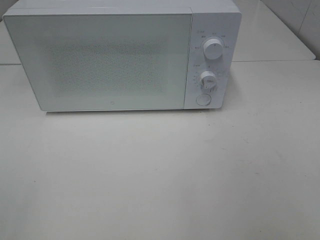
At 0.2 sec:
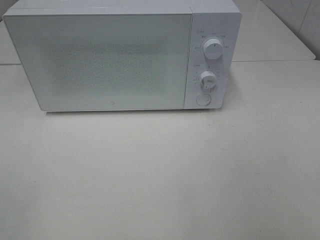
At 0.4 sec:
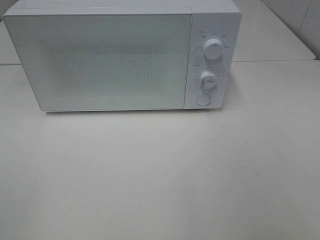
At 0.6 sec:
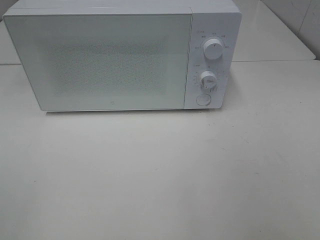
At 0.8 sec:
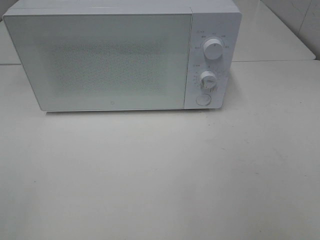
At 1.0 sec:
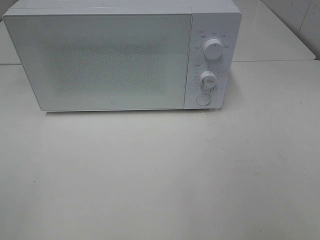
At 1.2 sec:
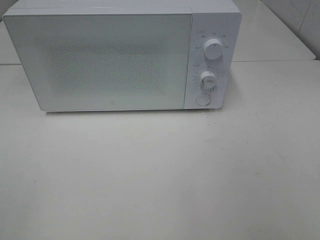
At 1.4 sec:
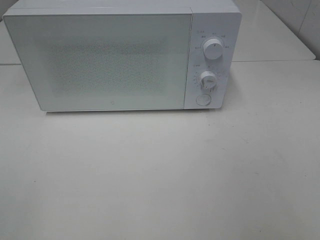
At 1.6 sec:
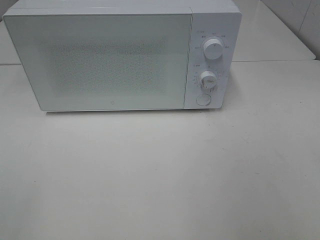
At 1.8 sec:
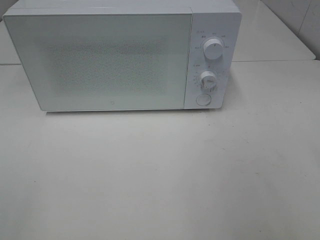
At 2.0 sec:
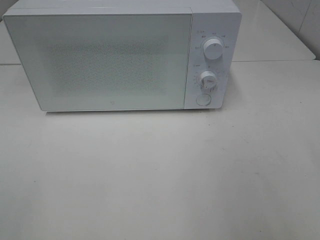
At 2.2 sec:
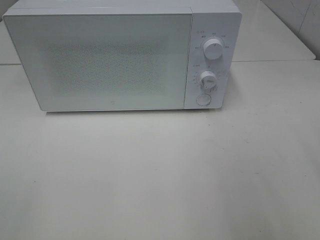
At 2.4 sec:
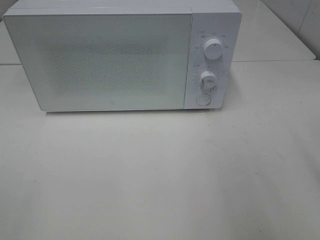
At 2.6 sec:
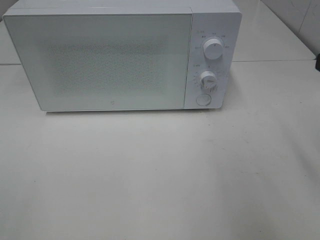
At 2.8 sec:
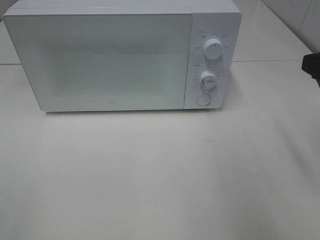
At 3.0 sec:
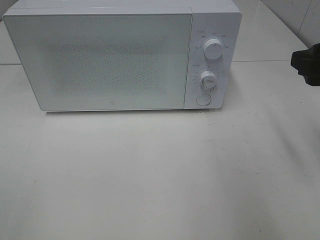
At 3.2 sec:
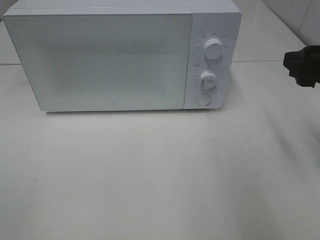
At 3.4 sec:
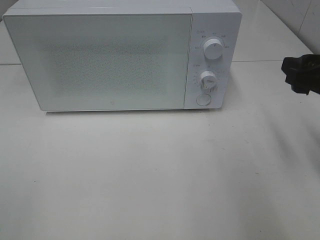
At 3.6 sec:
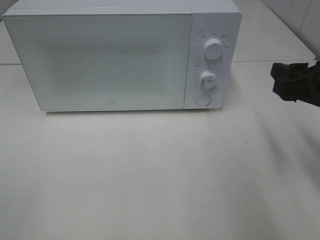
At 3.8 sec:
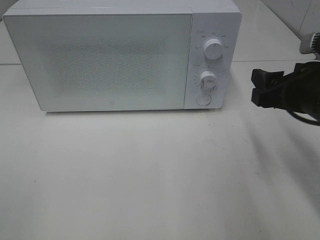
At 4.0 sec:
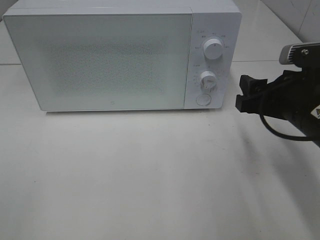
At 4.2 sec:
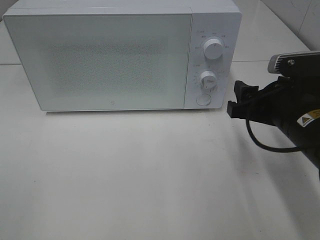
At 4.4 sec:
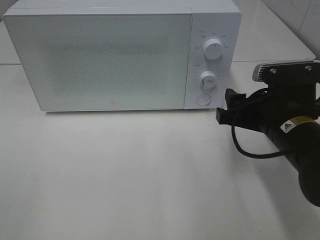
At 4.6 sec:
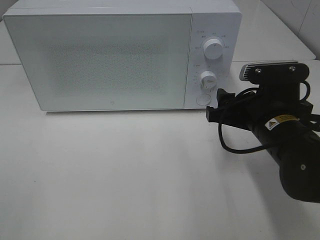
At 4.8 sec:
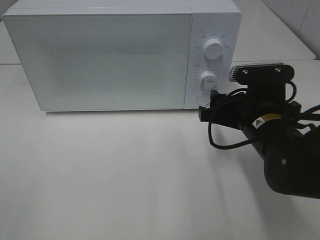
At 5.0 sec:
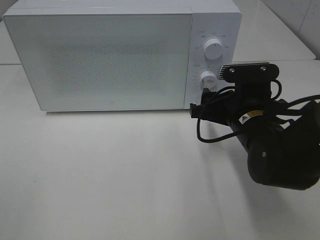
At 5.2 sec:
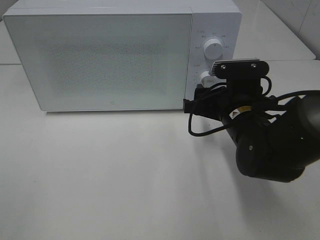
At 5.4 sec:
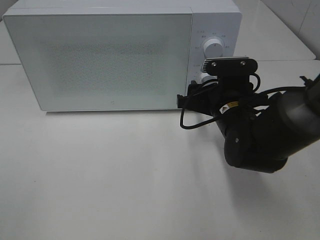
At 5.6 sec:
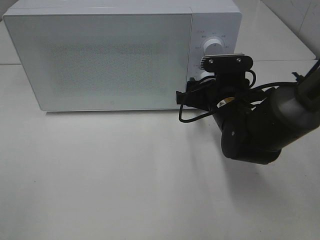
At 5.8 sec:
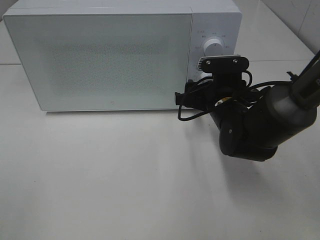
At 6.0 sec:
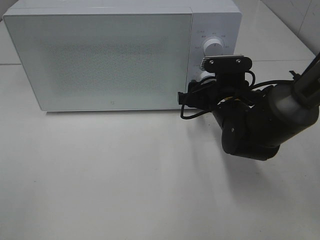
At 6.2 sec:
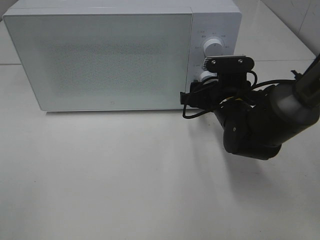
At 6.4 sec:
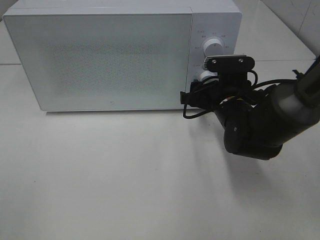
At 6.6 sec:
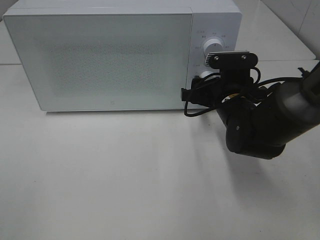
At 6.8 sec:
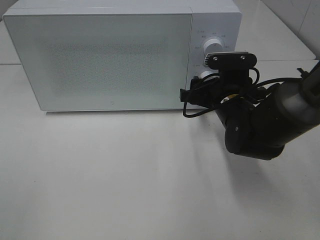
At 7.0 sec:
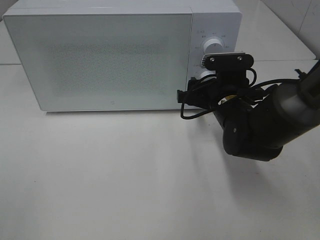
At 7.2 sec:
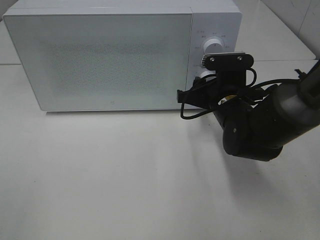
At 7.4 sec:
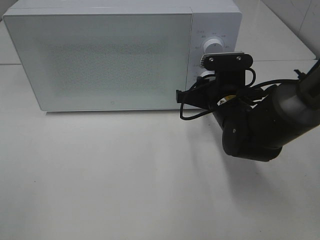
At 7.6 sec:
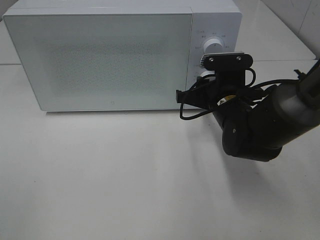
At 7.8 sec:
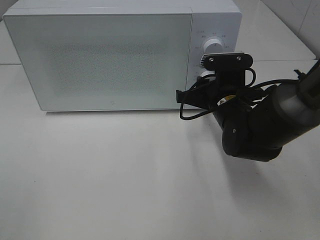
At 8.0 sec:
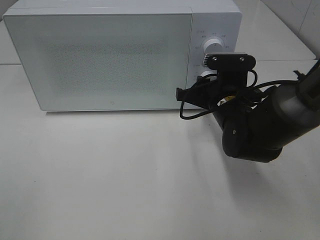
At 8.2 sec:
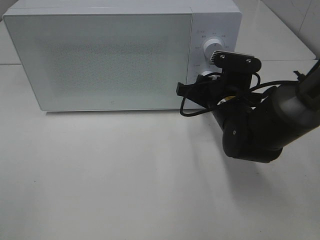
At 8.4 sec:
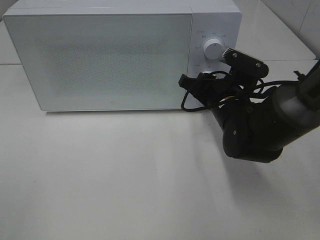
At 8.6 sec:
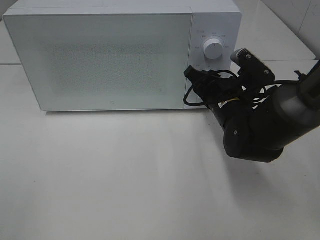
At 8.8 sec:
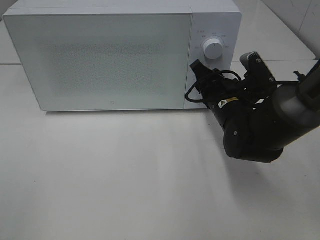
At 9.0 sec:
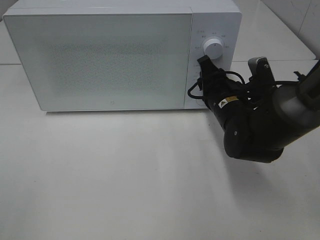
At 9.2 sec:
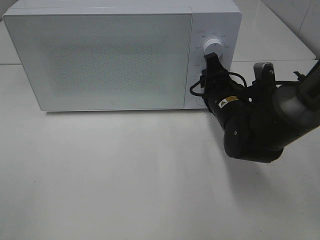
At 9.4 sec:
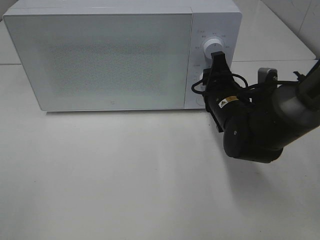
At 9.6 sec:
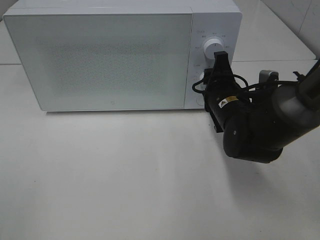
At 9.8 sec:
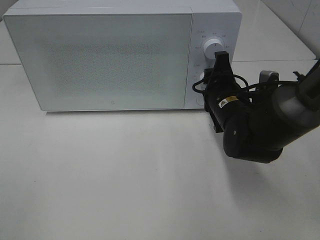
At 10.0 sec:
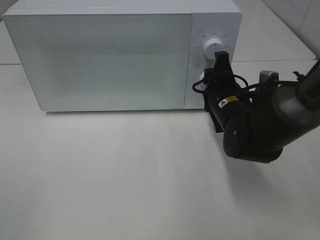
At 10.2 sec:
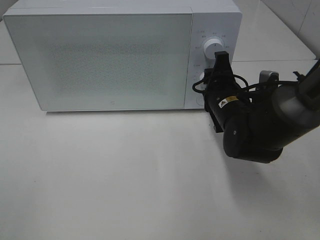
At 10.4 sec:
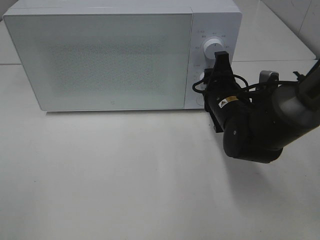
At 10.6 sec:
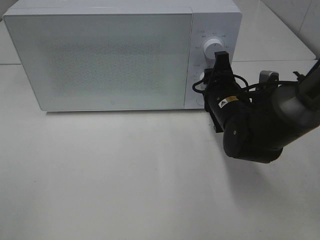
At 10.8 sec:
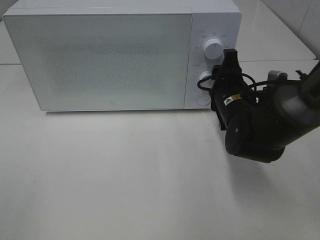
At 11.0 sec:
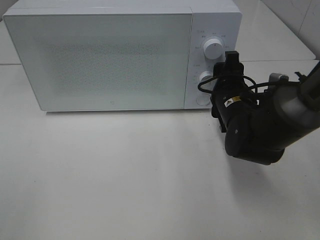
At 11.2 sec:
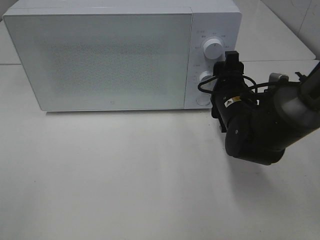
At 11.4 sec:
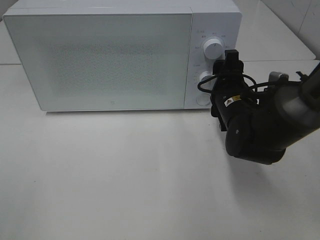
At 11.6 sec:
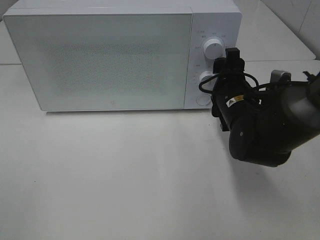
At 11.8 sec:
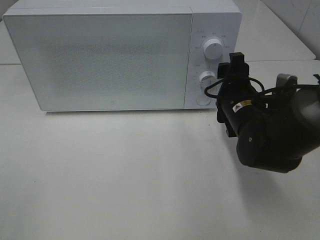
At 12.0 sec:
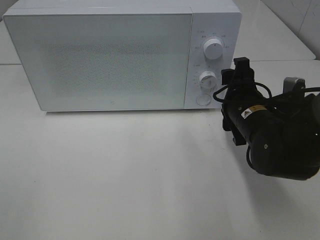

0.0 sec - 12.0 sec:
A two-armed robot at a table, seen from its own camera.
Task of the whole recording: Heat Sandwich.
Step, 0.0 sec - 10.8 sec: Right hand: twist timer button.
1.6 sec - 3.0 sec: The right gripper shifts about 20 cm forward.
3.0 sec - 4.4 sec: The right gripper is displaced downward and to the left by approximately 15 cm.
4.4 sec - 6.0 sec: The right gripper moves forward, roughly 10 cm.
6.0 sec - 7.6 sec: The right gripper closes its fingers.
10.4 sec - 12.0 sec: The right gripper opens.

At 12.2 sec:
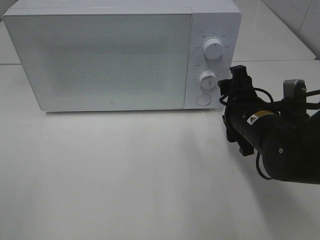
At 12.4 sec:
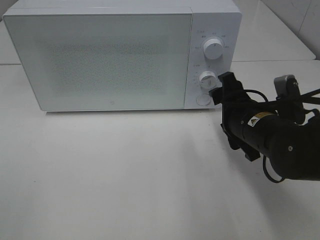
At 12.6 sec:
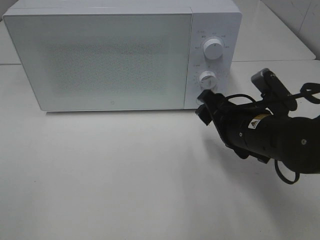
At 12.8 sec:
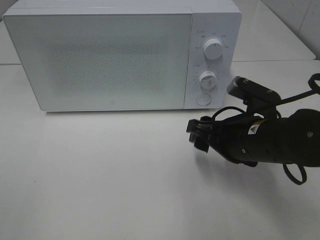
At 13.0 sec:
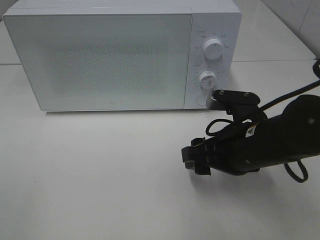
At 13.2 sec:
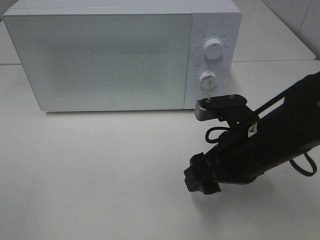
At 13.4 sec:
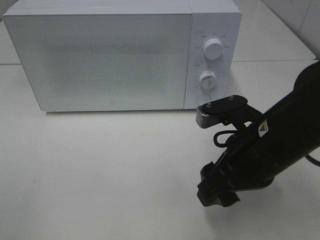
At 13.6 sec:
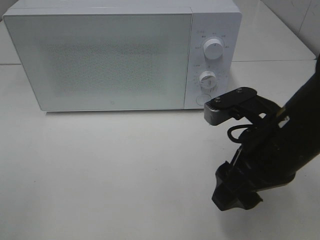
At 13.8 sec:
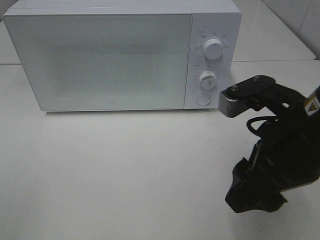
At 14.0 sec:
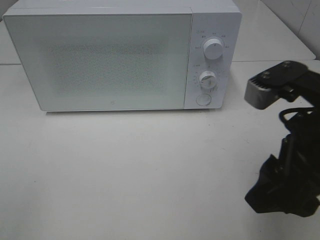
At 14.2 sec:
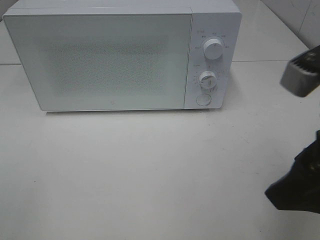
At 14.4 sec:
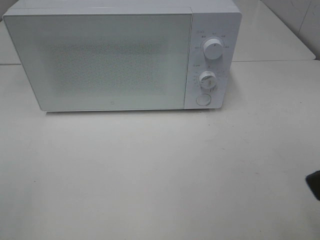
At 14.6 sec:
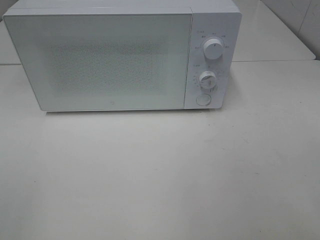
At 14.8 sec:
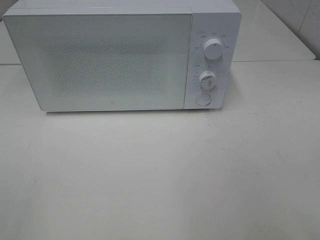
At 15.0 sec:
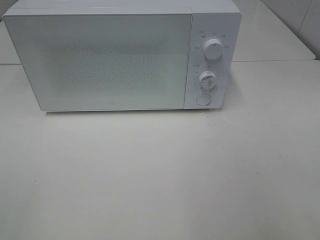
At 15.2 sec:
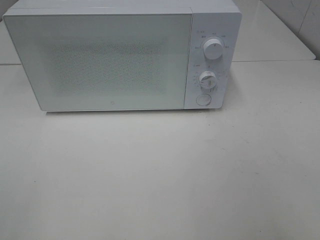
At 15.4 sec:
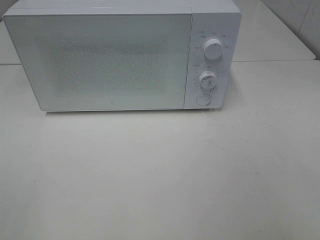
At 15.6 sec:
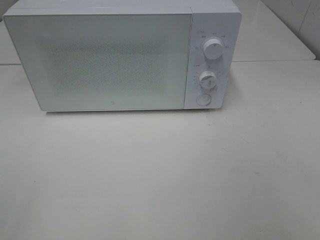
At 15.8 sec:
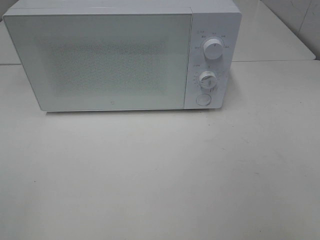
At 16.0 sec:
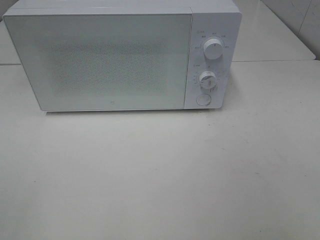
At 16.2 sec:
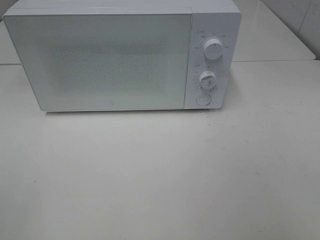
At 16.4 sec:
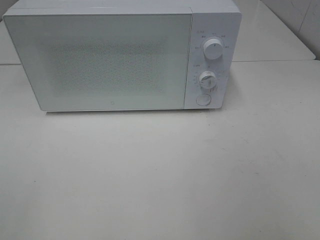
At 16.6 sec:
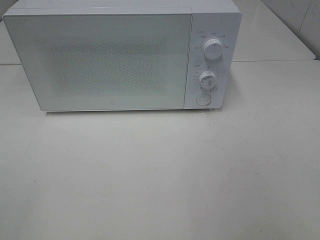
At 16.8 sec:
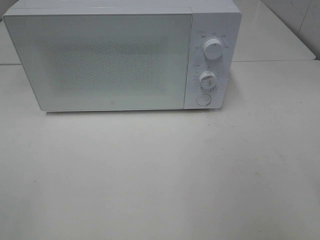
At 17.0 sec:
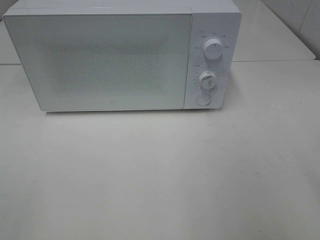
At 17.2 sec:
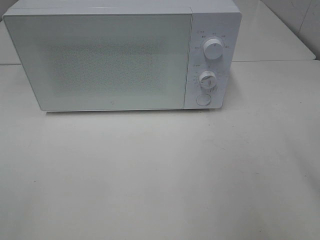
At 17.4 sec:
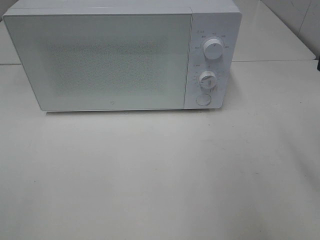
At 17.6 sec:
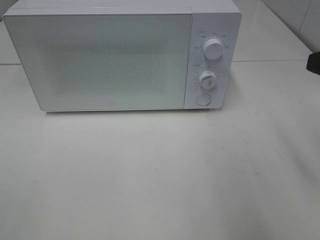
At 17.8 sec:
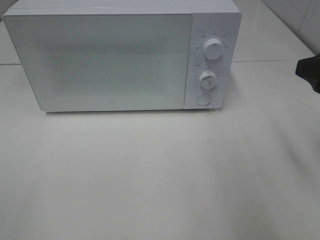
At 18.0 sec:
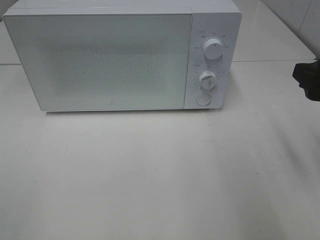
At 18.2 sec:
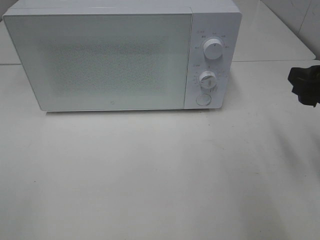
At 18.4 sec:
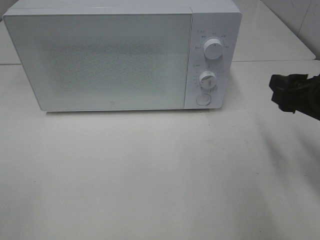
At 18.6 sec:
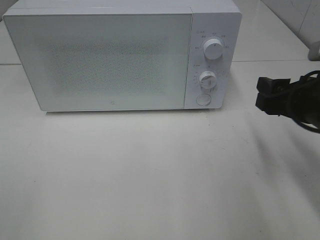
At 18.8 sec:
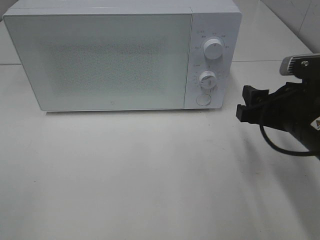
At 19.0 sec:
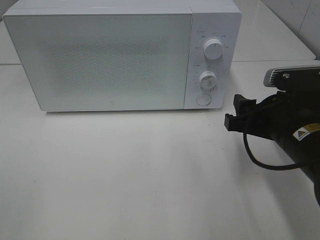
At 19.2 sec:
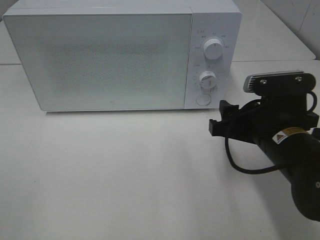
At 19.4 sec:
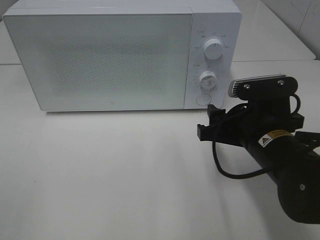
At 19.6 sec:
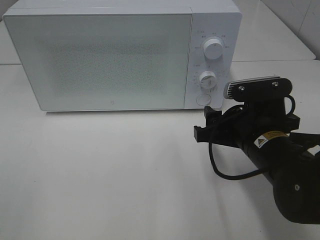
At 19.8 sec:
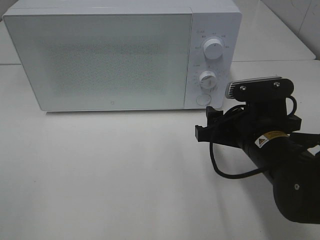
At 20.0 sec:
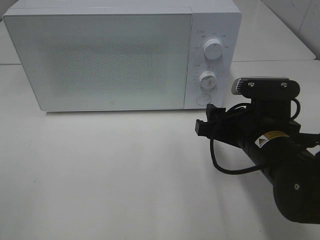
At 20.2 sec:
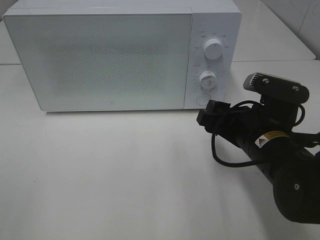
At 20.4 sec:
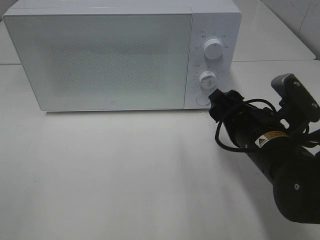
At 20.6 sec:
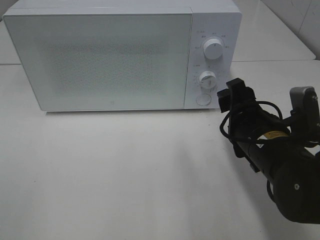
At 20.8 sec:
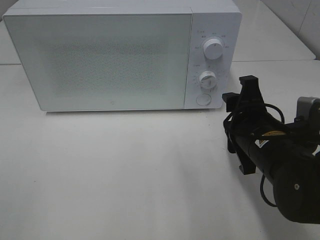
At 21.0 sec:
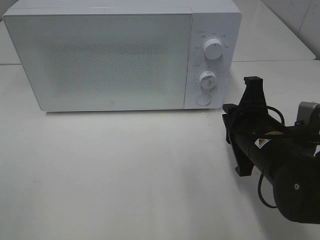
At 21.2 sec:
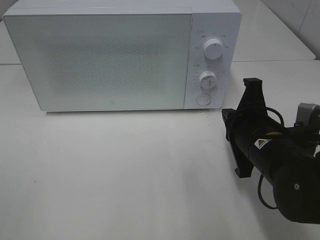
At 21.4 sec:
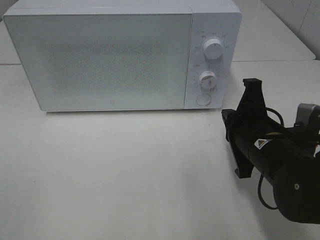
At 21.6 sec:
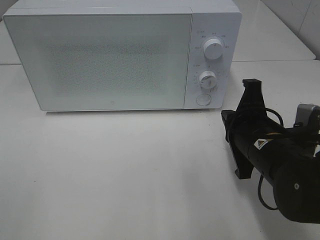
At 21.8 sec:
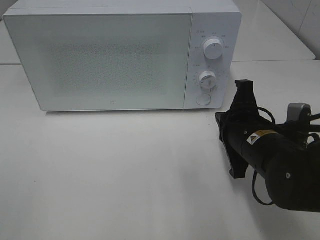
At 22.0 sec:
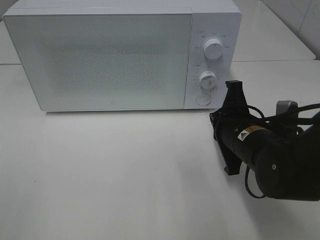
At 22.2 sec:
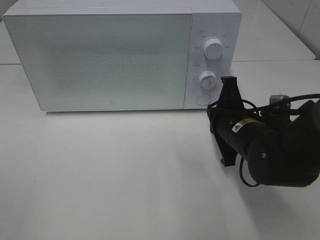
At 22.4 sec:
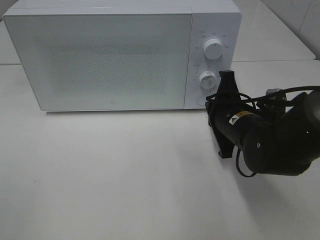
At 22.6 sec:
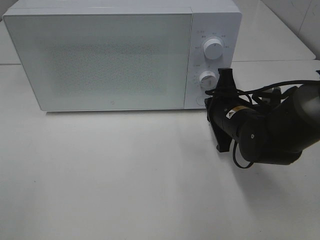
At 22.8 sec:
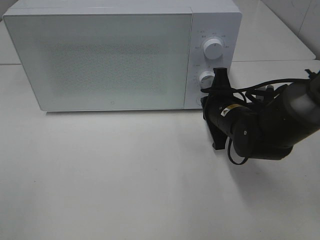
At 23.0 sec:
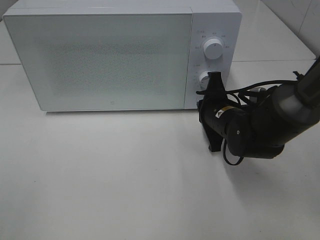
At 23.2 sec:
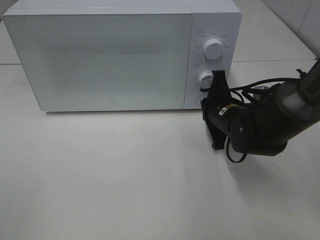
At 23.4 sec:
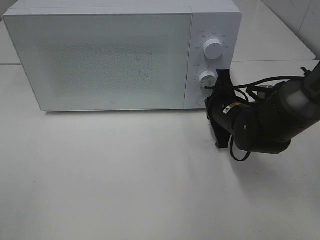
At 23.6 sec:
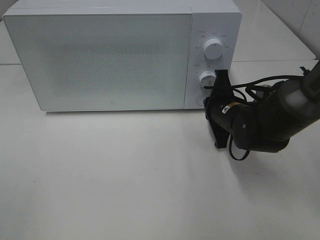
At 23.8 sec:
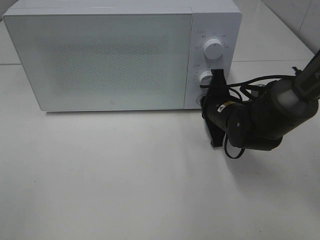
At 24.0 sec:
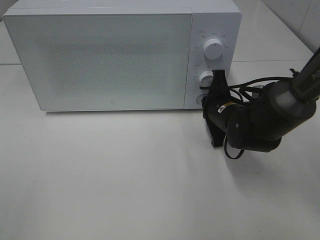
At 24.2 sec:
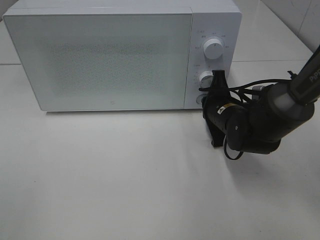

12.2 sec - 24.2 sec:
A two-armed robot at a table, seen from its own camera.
Task of the whole recording: Heat Sandwich.
12.2 sec - 13.8 sec: The right gripper moves upward and backward, roughly 15 cm.
13.8 sec - 15.2 sec: The right gripper travels backward and to the right by about 20 cm.
16.6 sec - 18.2 sec: The right gripper heads forward and downward, covering some 20 cm.
18.2 sec - 19.8 sec: The right gripper goes approximately 15 cm to the left and downward.
19.8 sec - 21.2 sec: The right gripper closes its fingers.
21.2 sec - 22.6 sec: The right gripper shifts approximately 10 cm forward.
22.6 sec - 24.2 sec: There are only small adjustments of the grippers.
